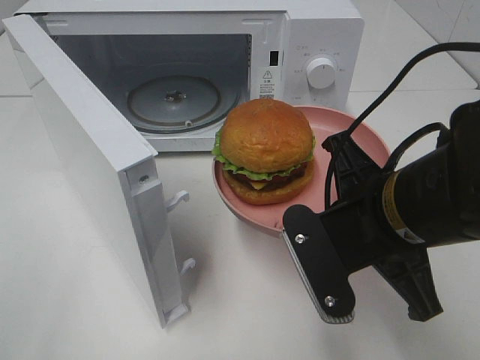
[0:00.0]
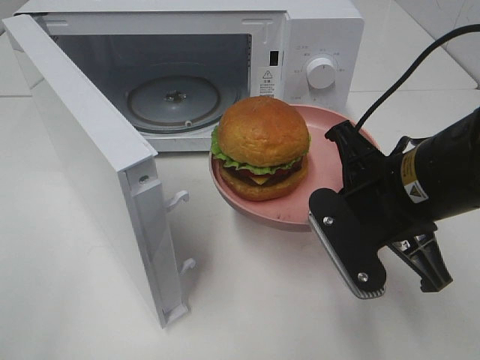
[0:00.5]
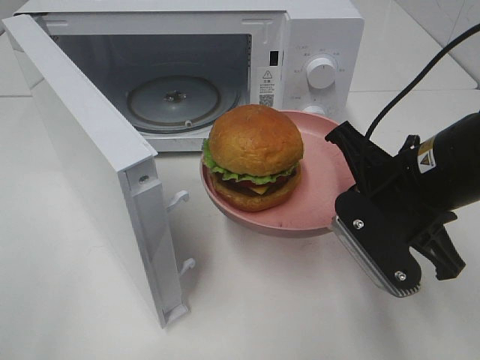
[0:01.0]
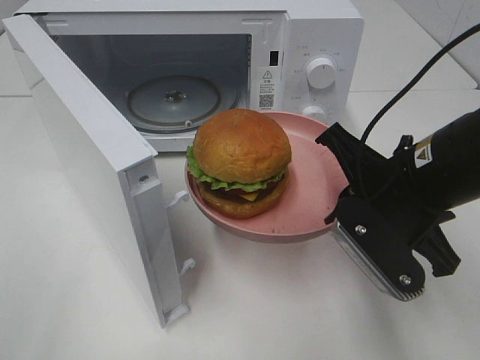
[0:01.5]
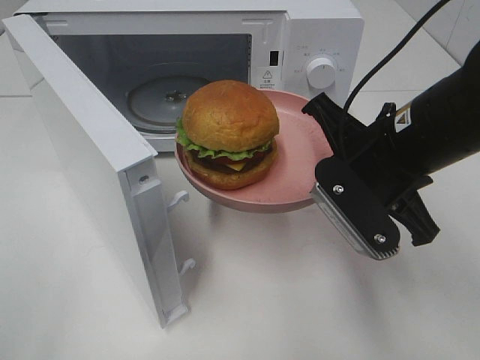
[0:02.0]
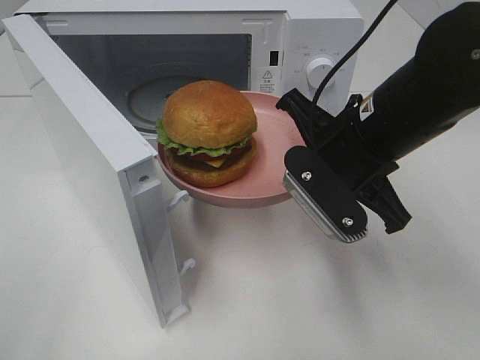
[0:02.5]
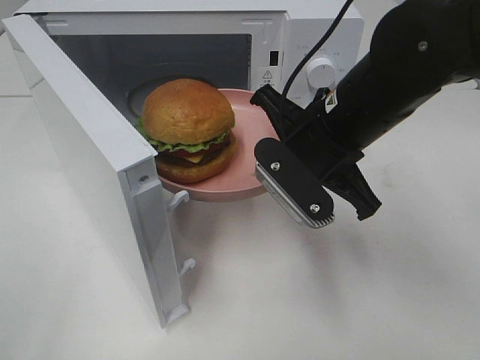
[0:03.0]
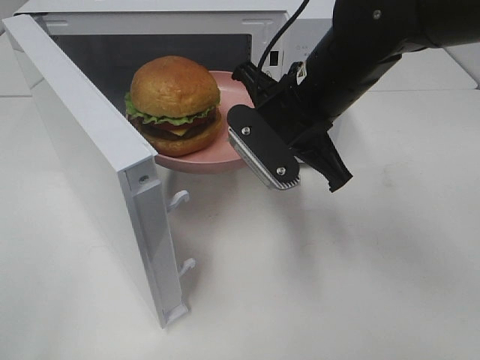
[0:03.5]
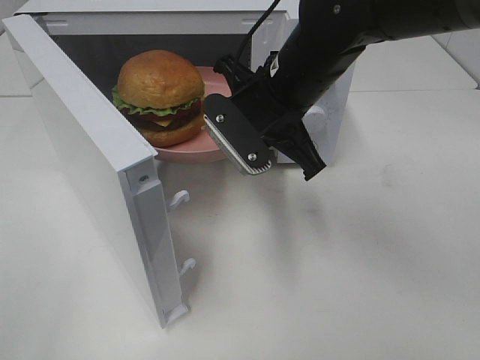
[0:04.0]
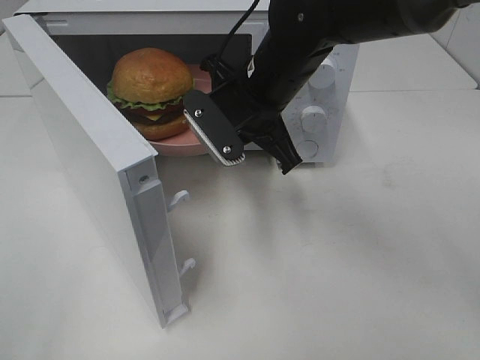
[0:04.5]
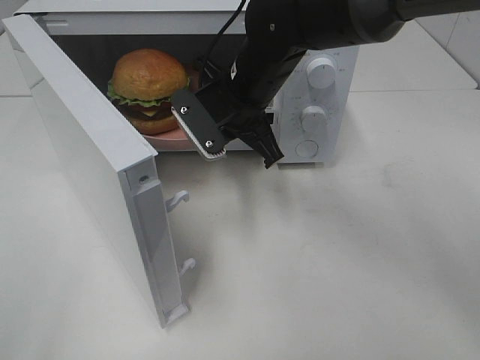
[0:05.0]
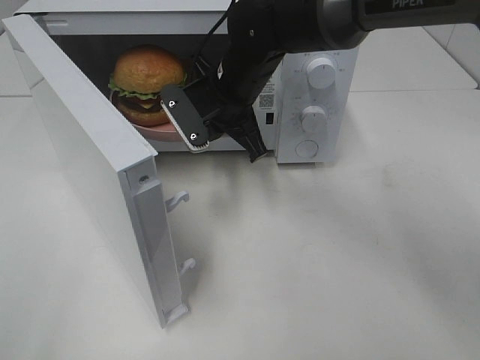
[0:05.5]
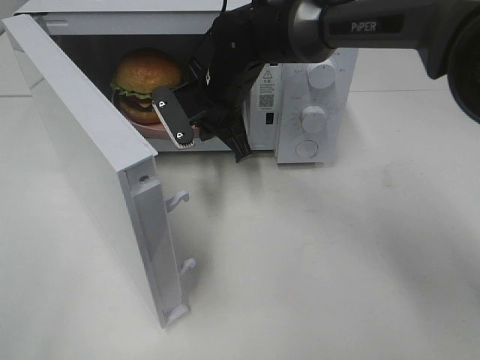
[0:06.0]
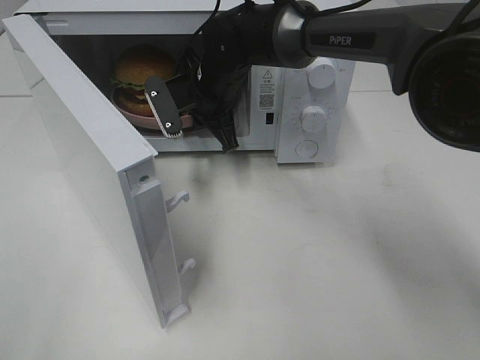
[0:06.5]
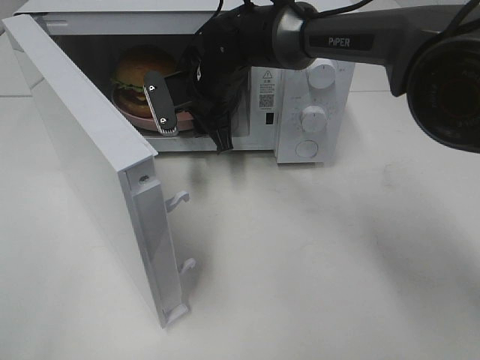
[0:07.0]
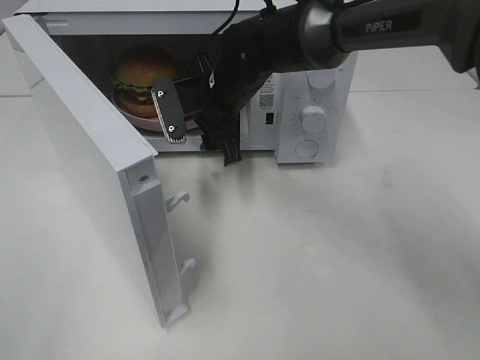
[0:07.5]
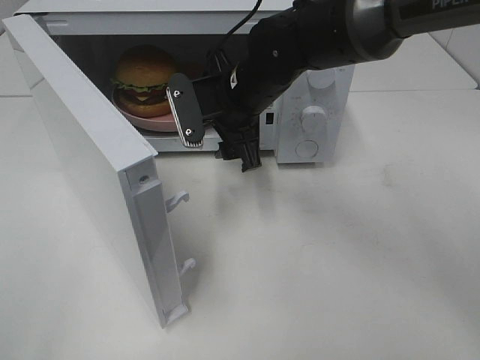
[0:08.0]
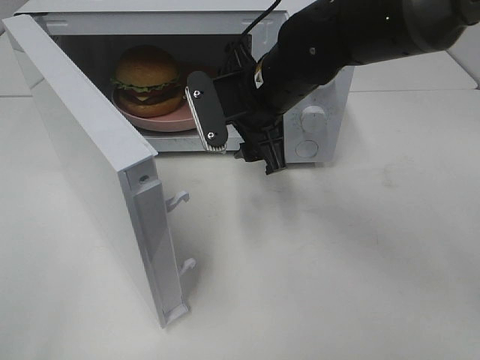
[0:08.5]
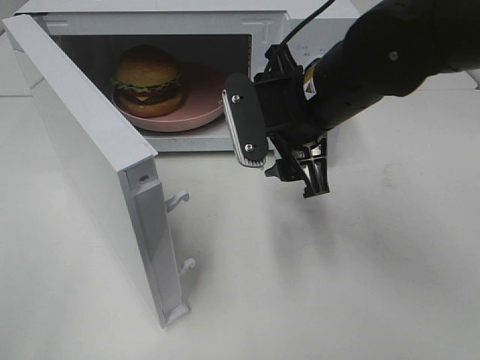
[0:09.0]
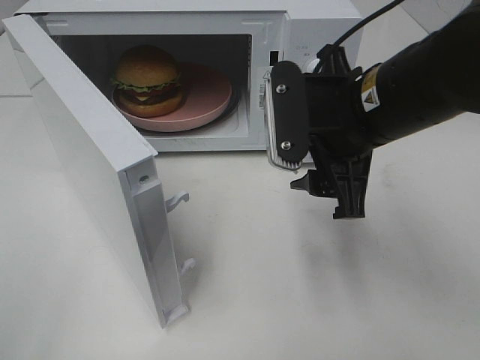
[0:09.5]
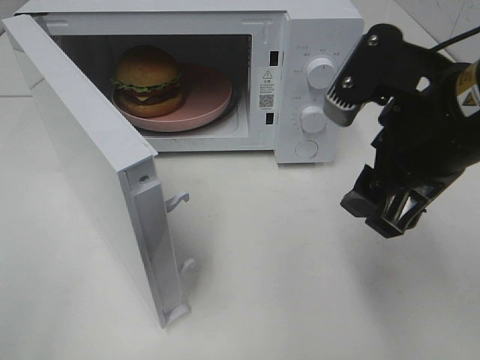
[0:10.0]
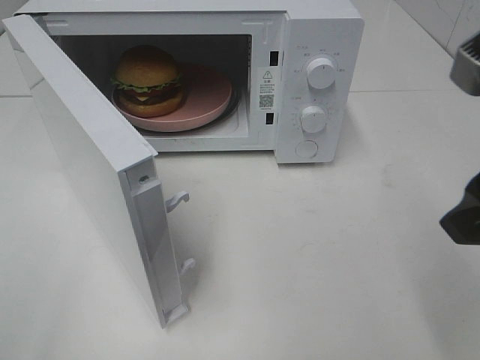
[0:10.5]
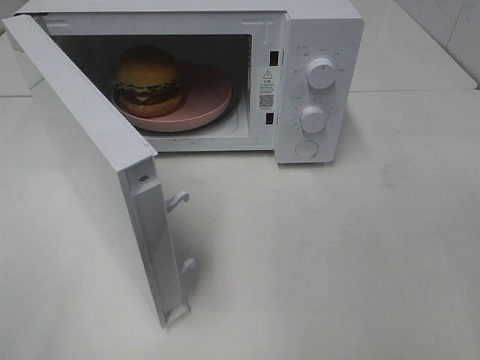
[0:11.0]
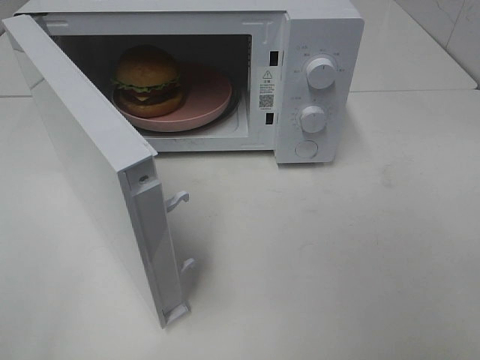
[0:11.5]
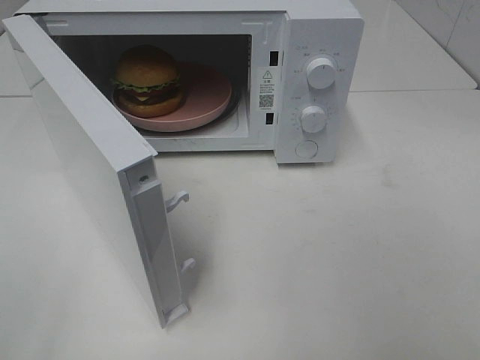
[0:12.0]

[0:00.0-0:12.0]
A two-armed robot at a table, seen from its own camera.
Task of the whole recording: Heat the burger.
Step, 0:00.0 to 0:07.0: Right hand: place the plate in the microwave.
0:00.0 to 0:02.0: The right gripper goes some 5 cm forward.
0:02.0 to 0:04.0: The right gripper heads to the left and forward, covering about 10 cm.
0:04.0 to 0:06.0: The right gripper shifts some 15 cm forward, to the left and downward.
0:06.0 to 0:08.0: The right gripper moves some 5 cm, and opens.
0:08.0 to 0:10.0: The right gripper moves backward, to the right and upward, about 25 cm.
0:10.0 to 0:12.0: The right gripper shifts roughly 25 cm backward and to the right.

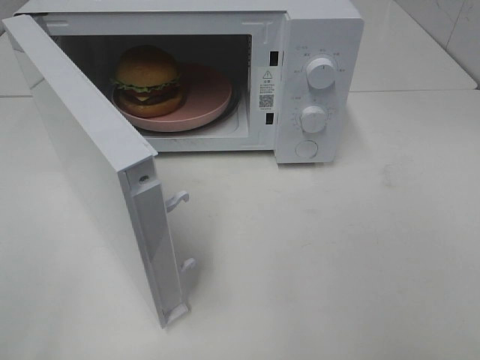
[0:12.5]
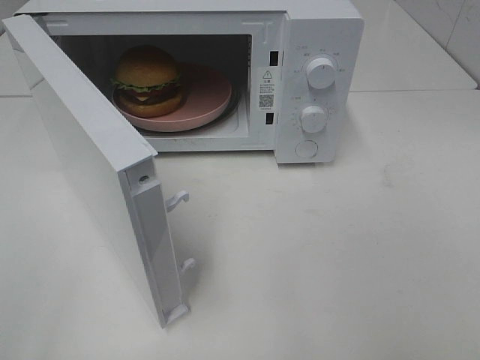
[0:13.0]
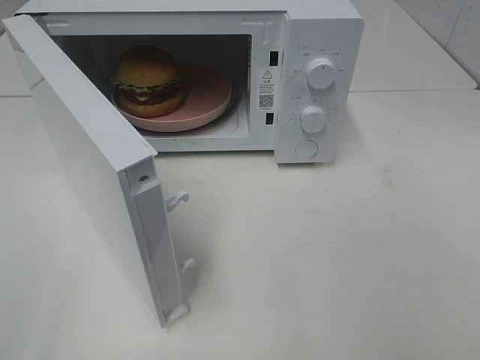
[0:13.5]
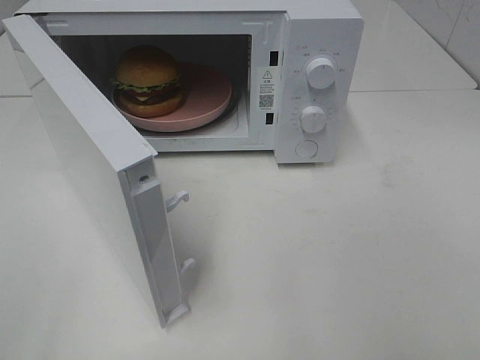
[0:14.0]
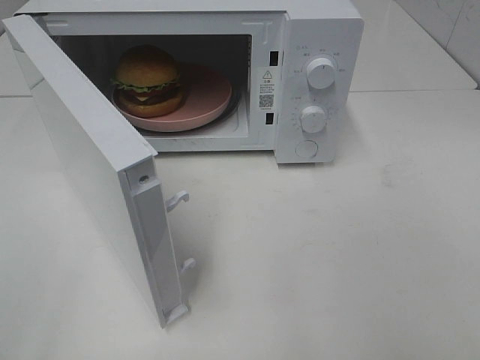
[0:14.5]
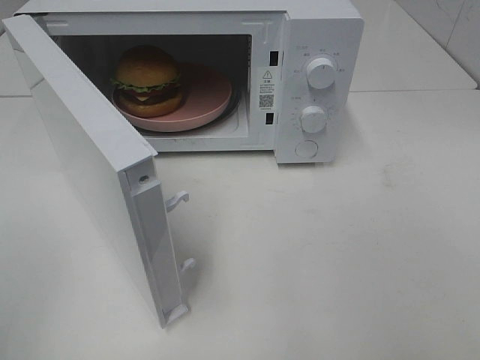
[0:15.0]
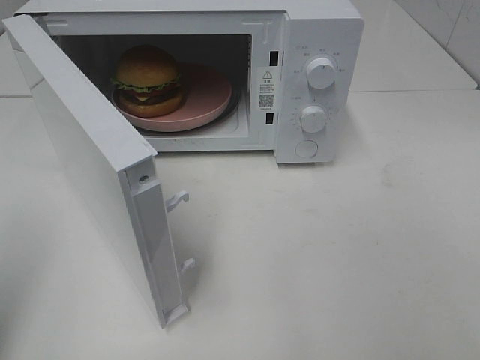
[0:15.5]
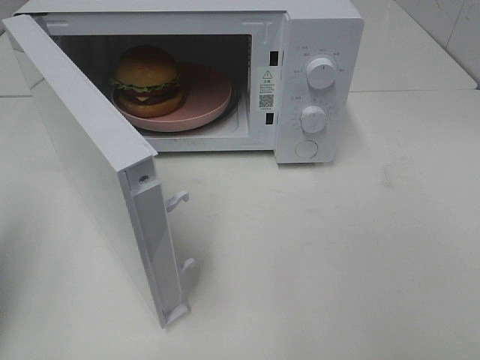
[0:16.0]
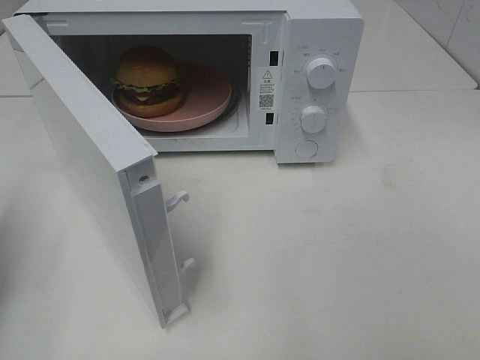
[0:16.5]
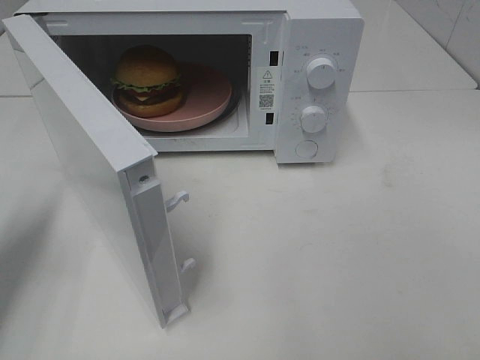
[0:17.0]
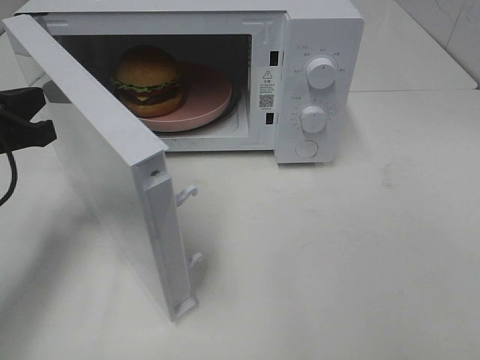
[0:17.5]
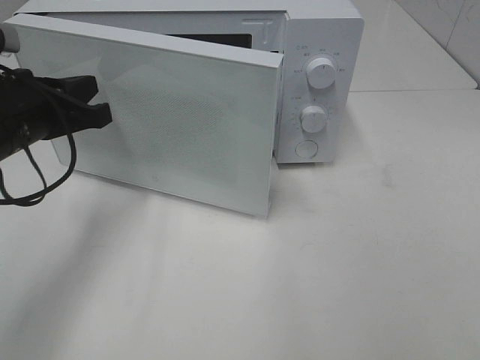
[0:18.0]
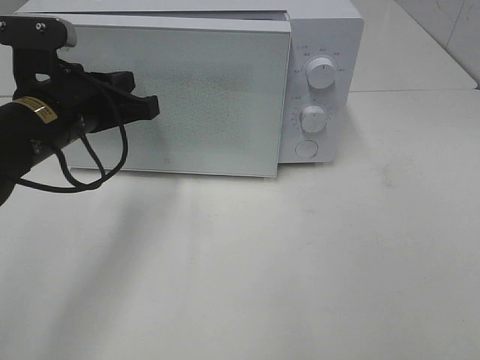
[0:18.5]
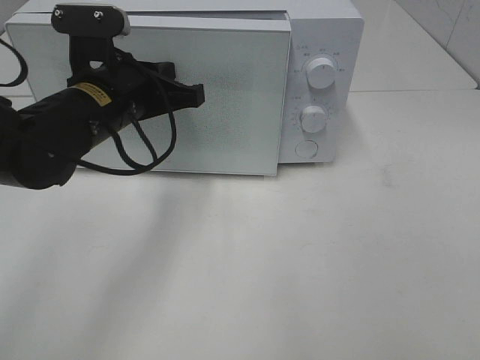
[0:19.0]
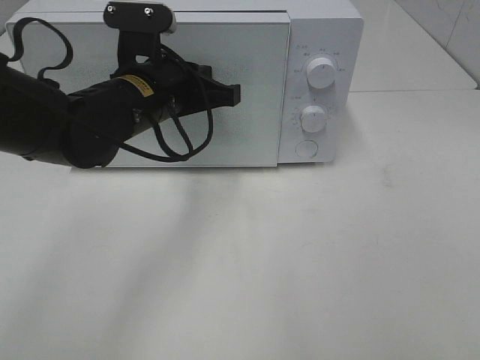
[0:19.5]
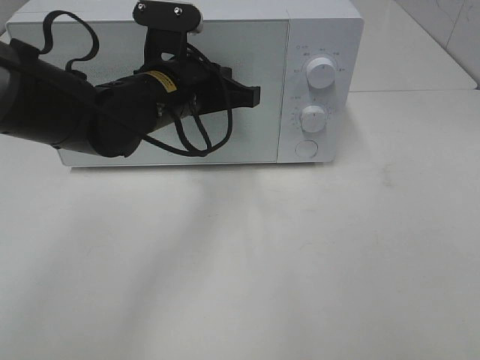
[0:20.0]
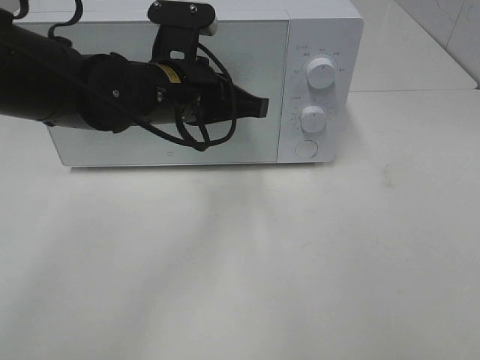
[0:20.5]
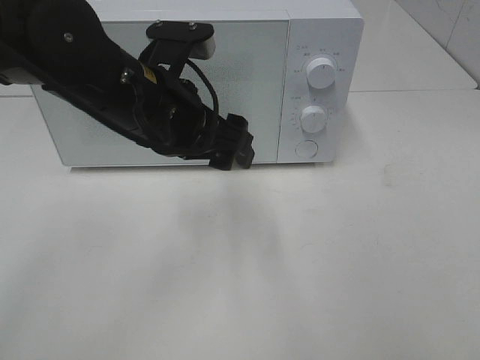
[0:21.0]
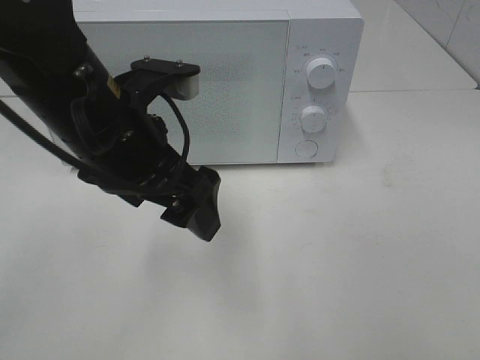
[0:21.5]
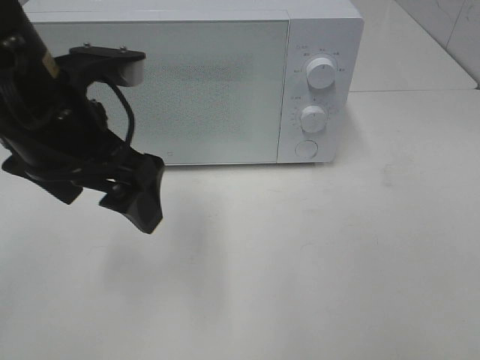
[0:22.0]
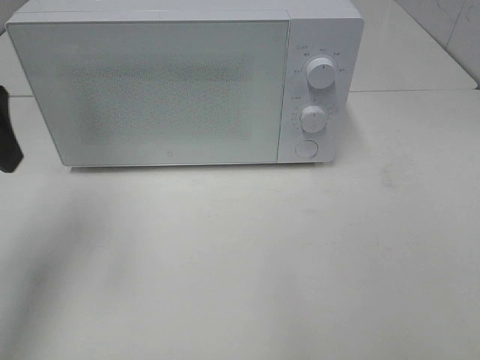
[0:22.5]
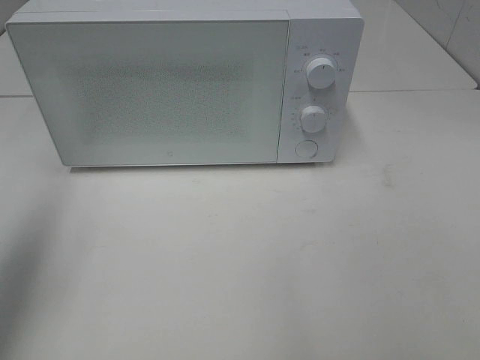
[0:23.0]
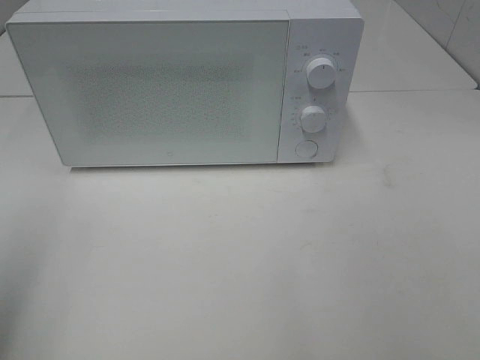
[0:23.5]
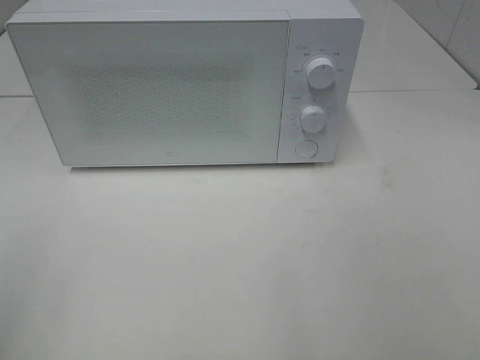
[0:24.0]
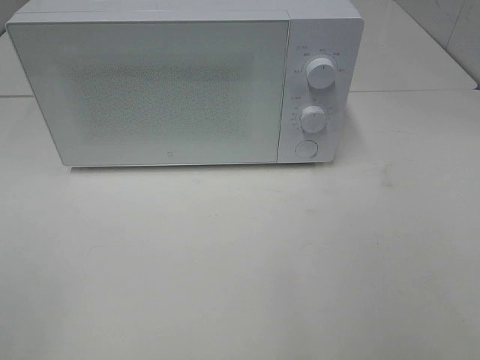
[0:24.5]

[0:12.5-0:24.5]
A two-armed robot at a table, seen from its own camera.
Task of the whole recording: Heat the burger.
Step, 0:12.5 to 0:20.5: Left hand: close the microwave door.
0:12.5 to 0:14.5: Neither gripper changes place.
0:14.5 to 0:16.5: The left gripper shifts roughly 20 cm forward, and closes its fingers.
0:16.5 to 0:18.5: The left gripper travels to the right and forward by about 20 cm.
0:18.5 to 0:20.5: The left gripper is displaced to the right by about 10 cm.
0:20.5 to 0:22.5: The left gripper goes some 25 cm to the left and upward, and opens.
0:22.5 to 0:24.5: The left gripper is displaced backward by roughly 25 cm.

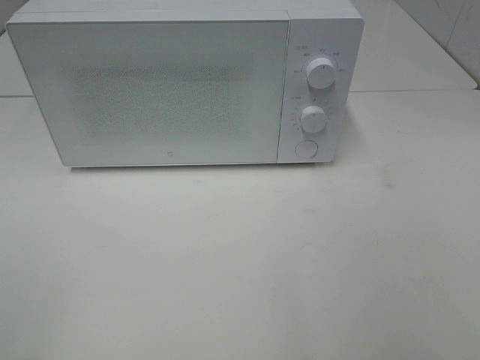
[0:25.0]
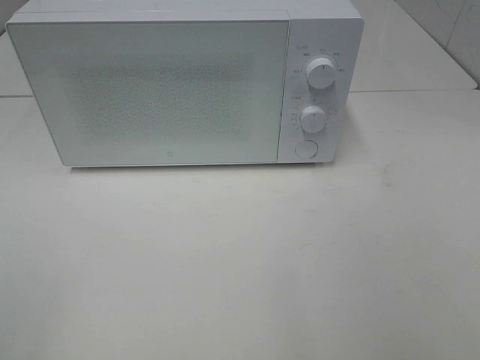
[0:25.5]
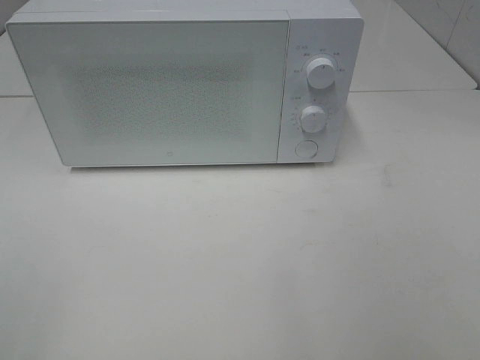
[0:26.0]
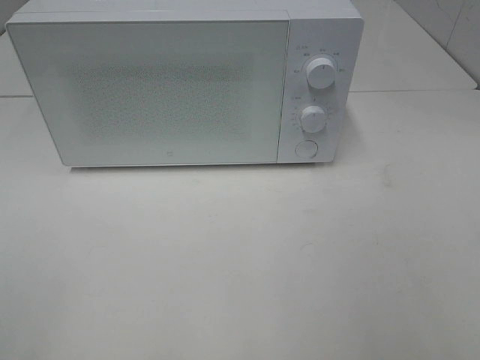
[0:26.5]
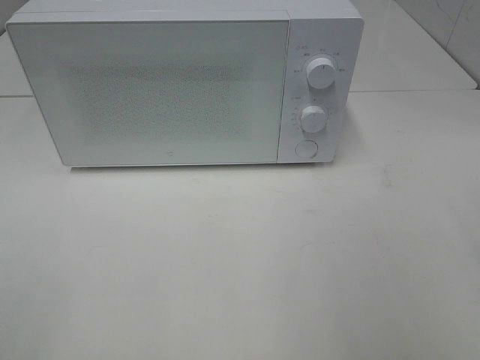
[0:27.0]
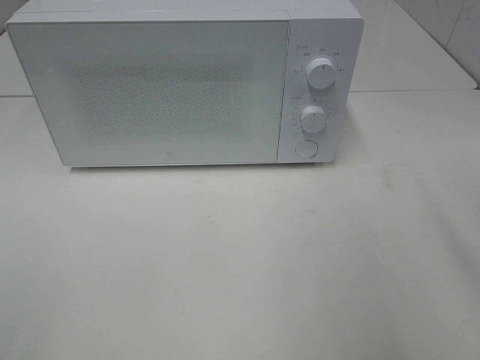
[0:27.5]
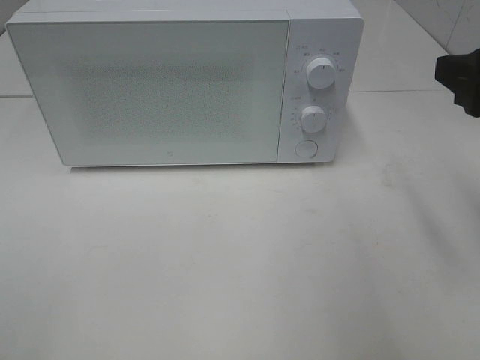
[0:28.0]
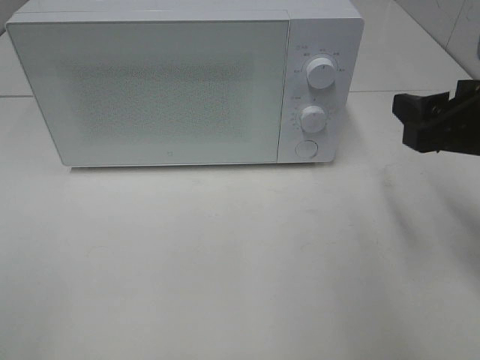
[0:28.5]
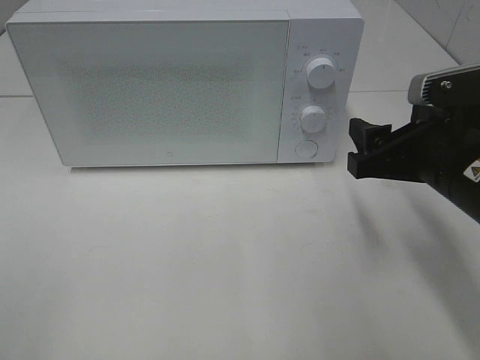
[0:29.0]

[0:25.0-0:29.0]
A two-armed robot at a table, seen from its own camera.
Task of the whole recording: Heat the burger.
0:27.0 to 0:29.0: The right gripper shifts some 20 cm forward, downward and to the left.
